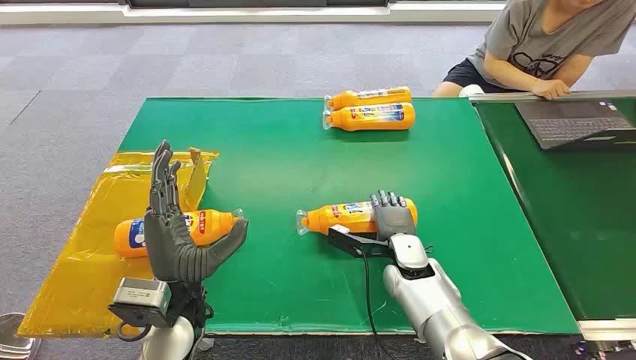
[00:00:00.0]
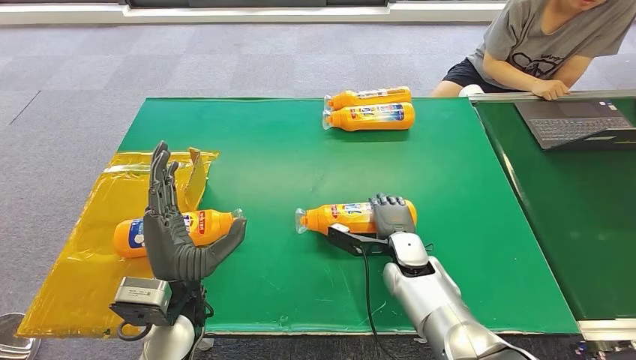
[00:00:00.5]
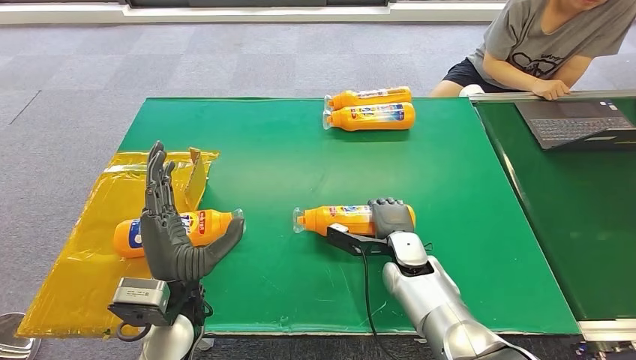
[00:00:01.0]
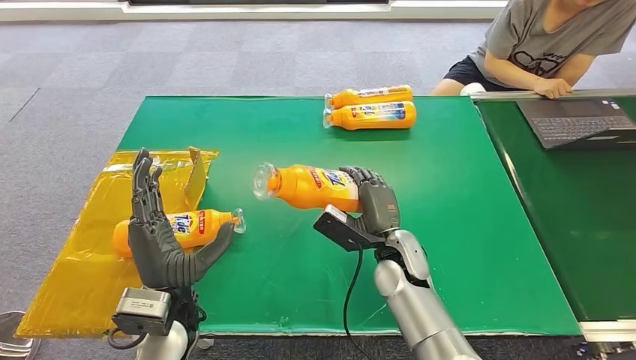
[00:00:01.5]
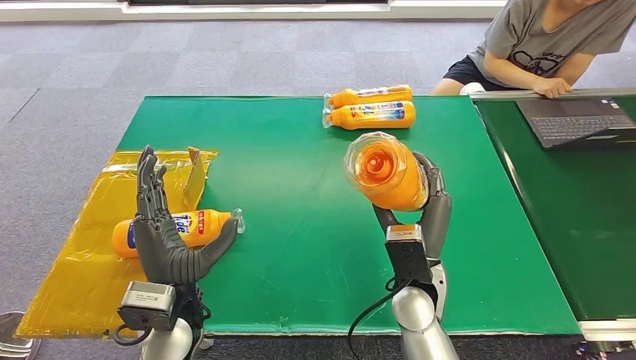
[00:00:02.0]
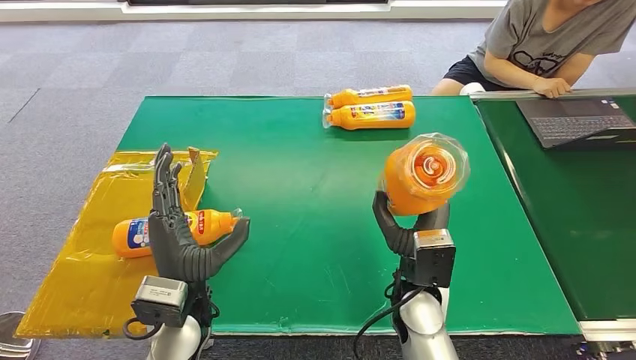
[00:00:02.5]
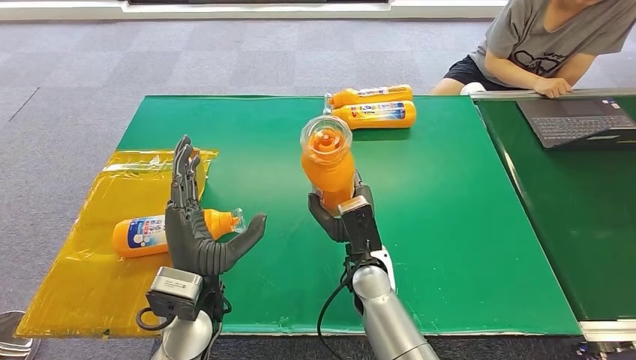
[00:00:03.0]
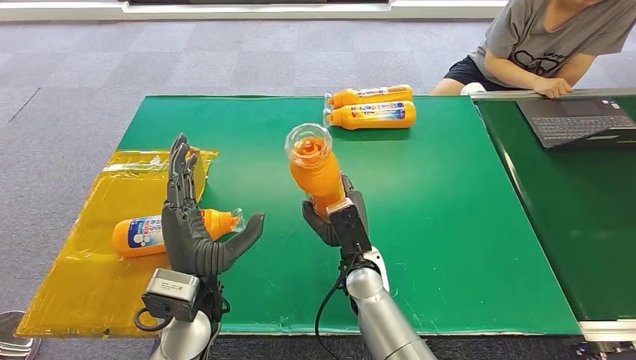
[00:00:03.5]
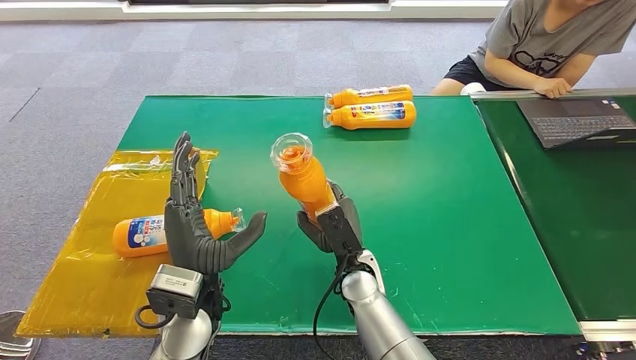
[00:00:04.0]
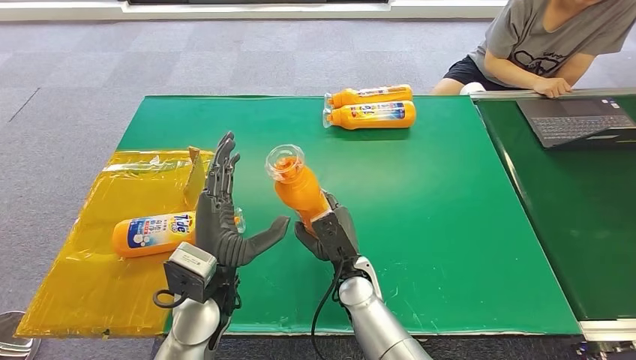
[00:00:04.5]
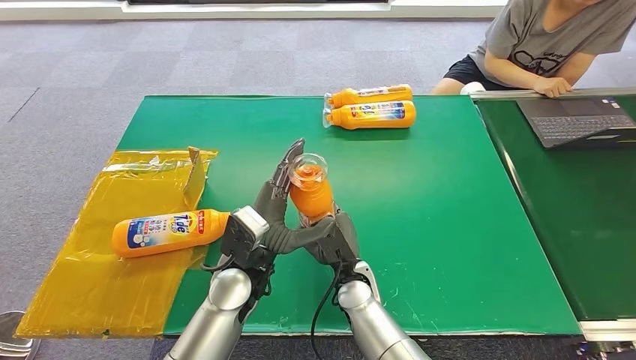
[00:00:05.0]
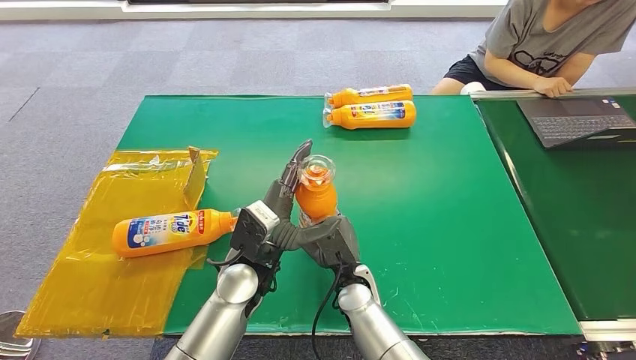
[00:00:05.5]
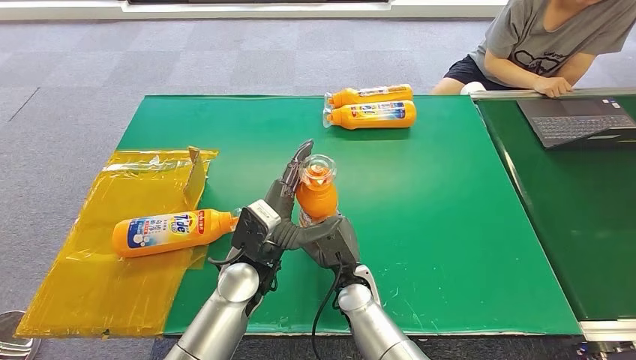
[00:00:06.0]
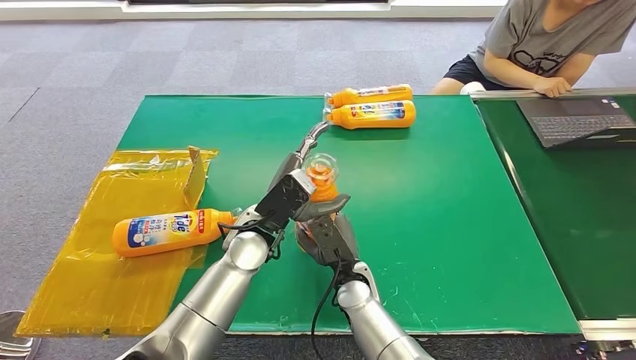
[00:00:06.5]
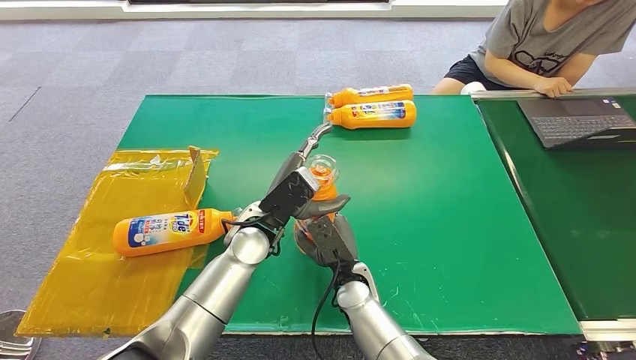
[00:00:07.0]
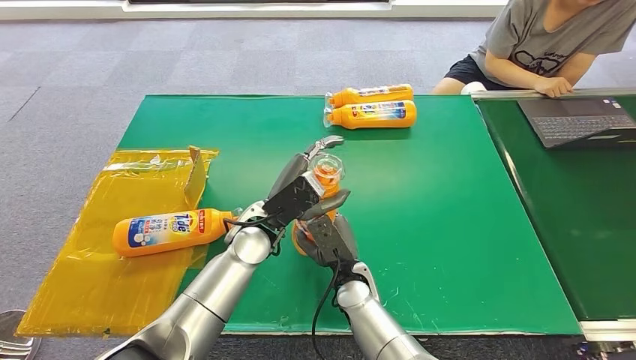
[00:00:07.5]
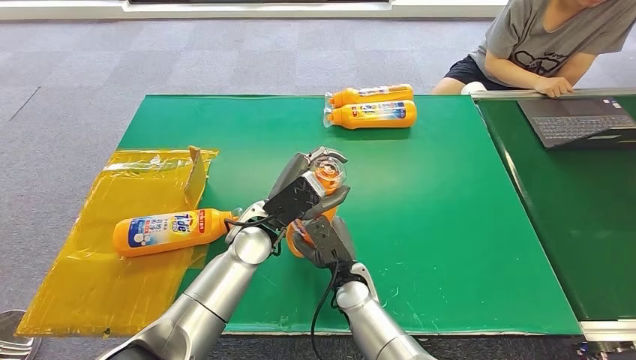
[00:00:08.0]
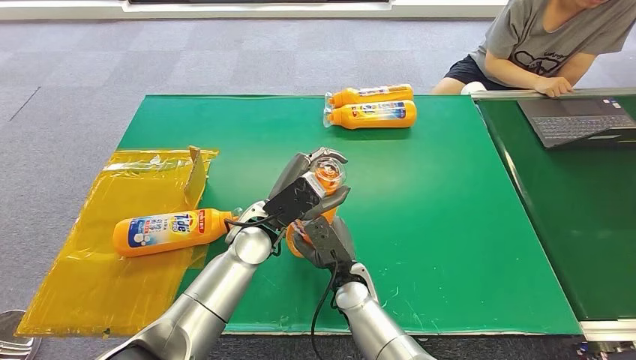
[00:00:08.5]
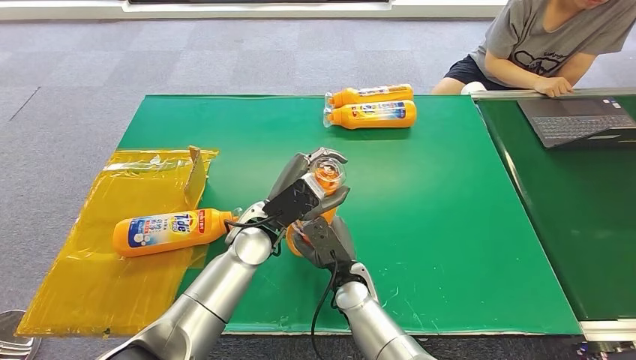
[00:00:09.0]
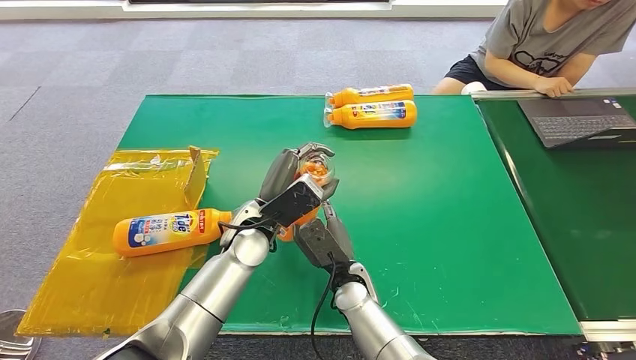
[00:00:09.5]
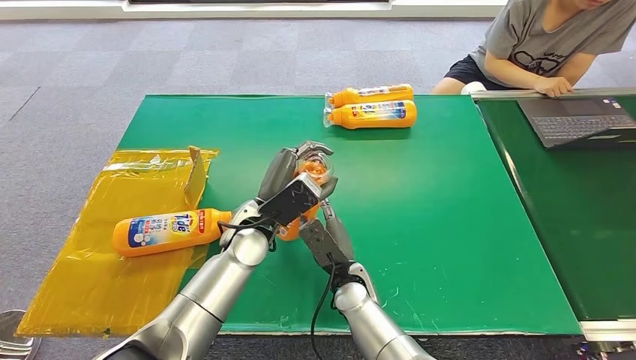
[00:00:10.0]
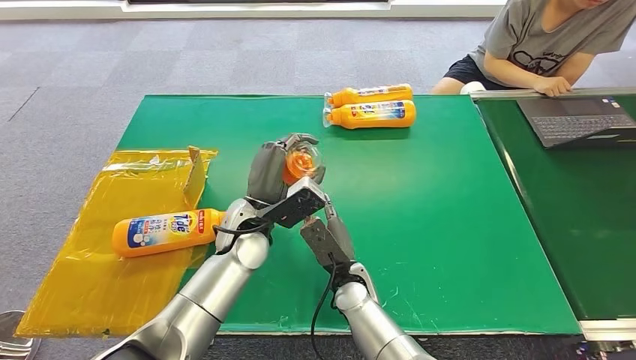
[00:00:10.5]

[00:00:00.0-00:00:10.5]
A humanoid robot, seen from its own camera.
Step, 00:00:00.0 to 00:00:02.5: Pick up the bottle from the table.
00:00:02.0 to 00:00:04.0: The right hand is displaced to the left and downward by approximately 10 cm.
00:00:04.0 to 00:00:06.5: The left hand shifts some 10 cm forward and to the right.
00:00:06.5 to 00:00:08.5: The hands move only a little.

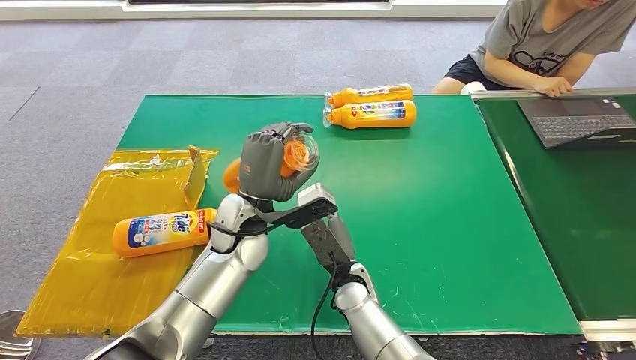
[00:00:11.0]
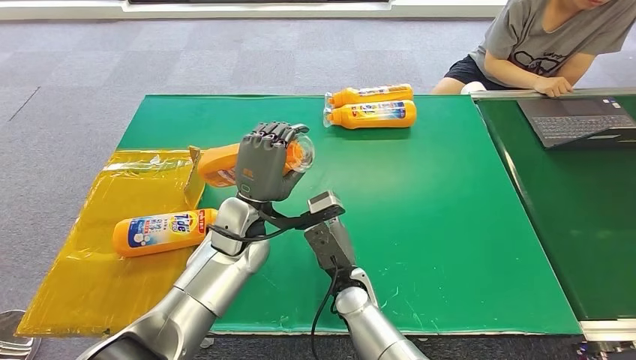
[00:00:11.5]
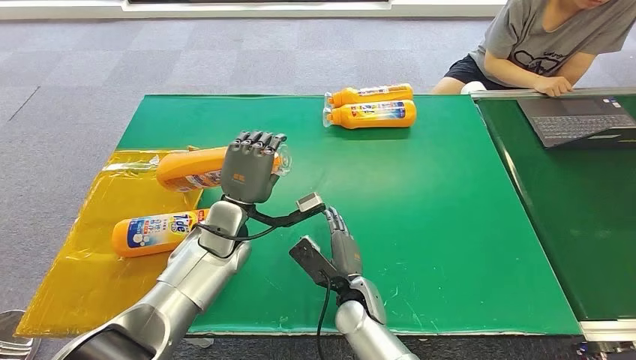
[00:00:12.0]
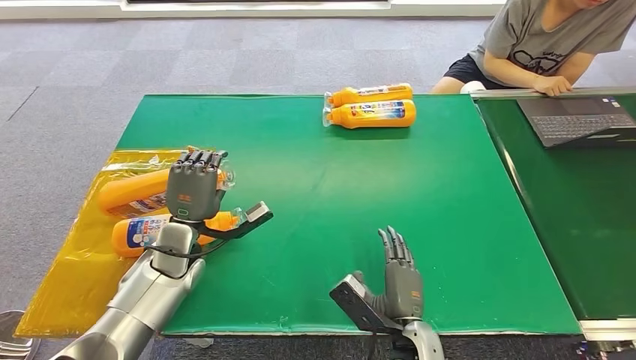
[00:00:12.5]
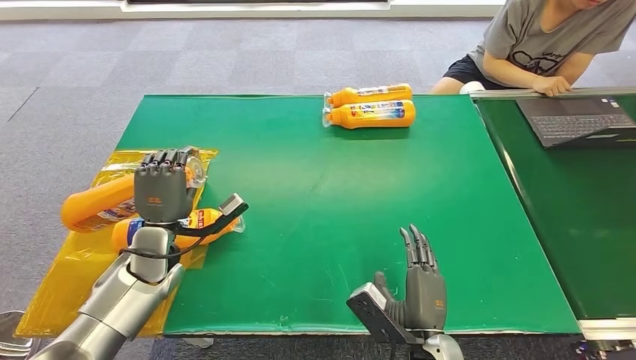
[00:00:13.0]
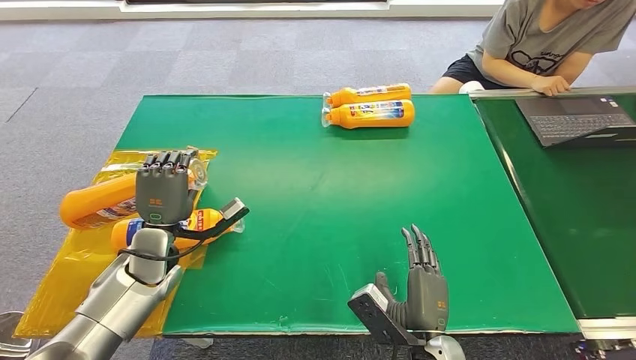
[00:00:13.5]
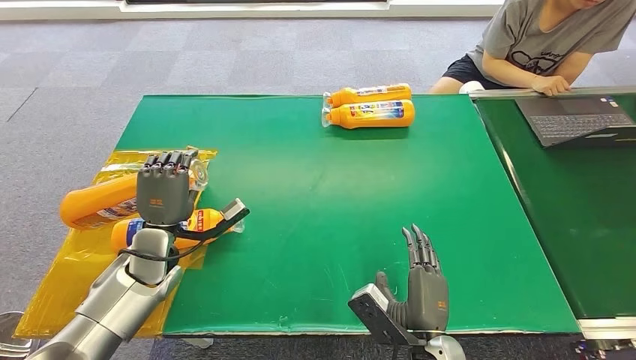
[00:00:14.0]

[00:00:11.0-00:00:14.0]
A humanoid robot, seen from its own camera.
Step, 00:00:11.0 to 00:00:14.0: Turn the bottle to the front side.
00:00:11.0 to 00:00:12.5: The right hand heads backward and to the right, covering roughly 15 cm. Meanwhile the left hand shifts roughly 15 cm to the left and downward.
00:00:12.5 to 00:00:14.0: There are only small adjustments of the hands.
